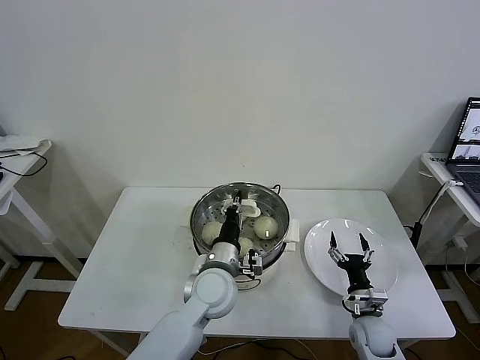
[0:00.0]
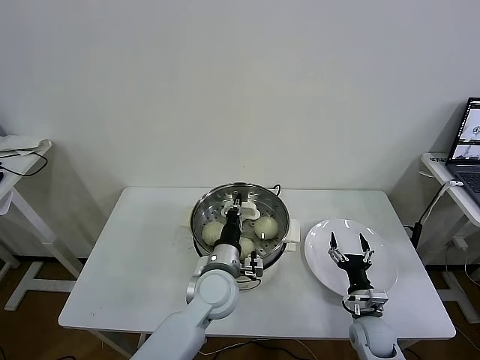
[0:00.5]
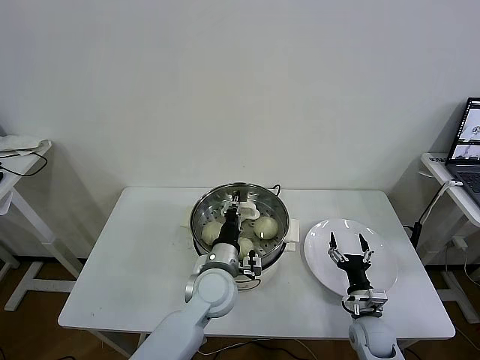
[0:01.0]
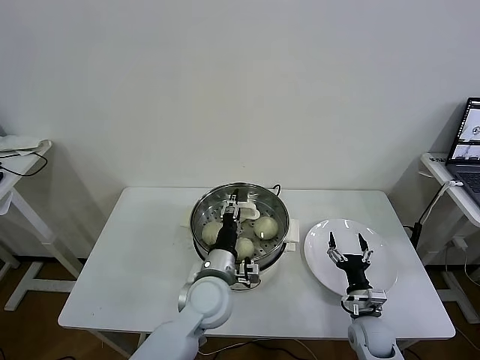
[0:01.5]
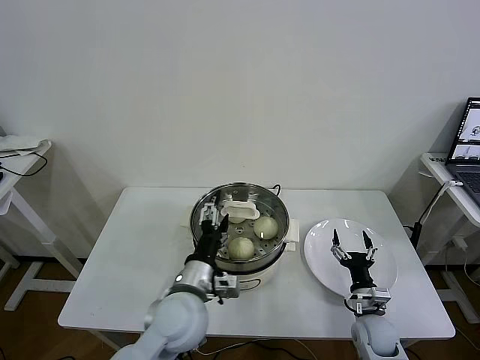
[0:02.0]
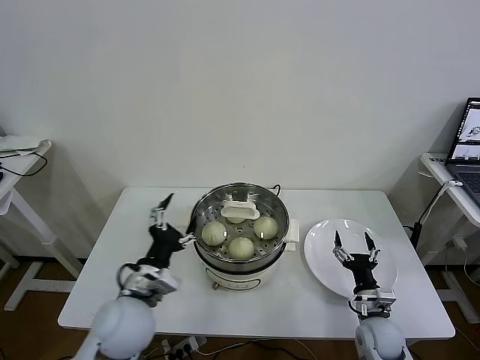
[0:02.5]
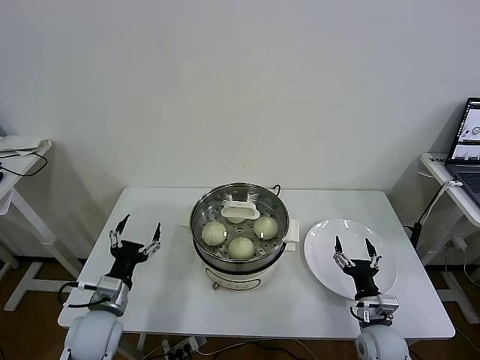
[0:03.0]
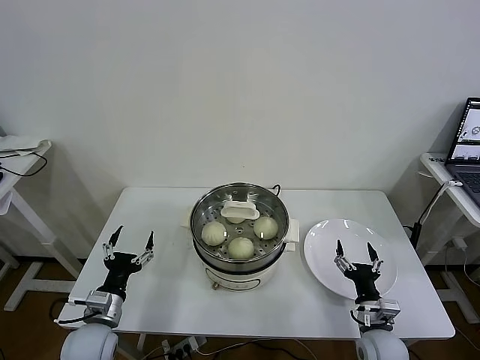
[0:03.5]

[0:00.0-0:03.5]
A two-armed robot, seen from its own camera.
Task of the whole recording: take steamed baozi put them in steamer then cover it.
0:00.0 to 0:02.0: The left gripper shifts some 5 cm backward, and opens up.
0:02.0 to 0:03.5: The left gripper is displaced to the left and downward by some 25 cm. The right gripper changes place by approximately 5 cm.

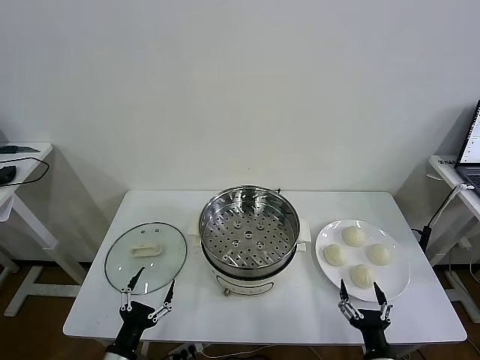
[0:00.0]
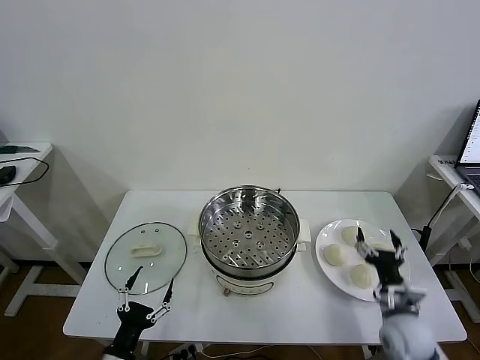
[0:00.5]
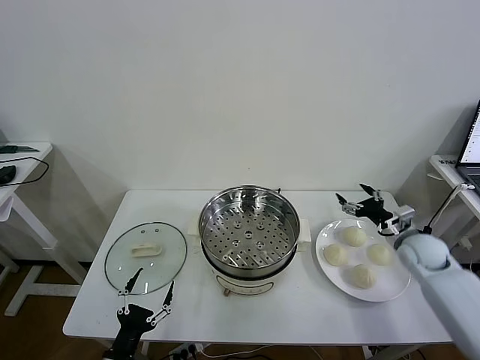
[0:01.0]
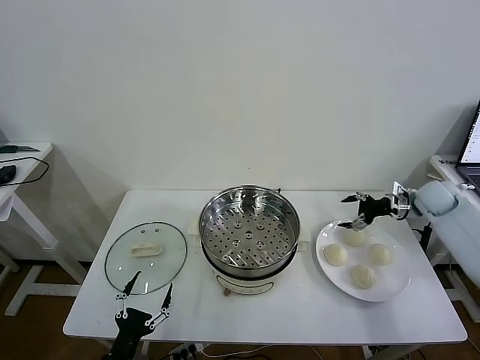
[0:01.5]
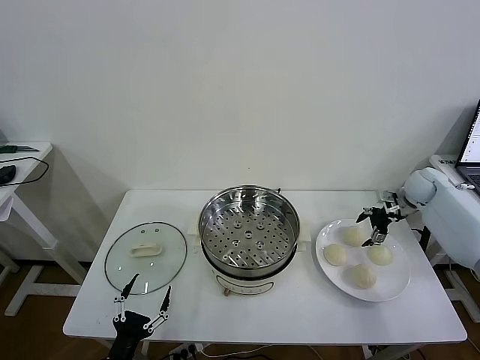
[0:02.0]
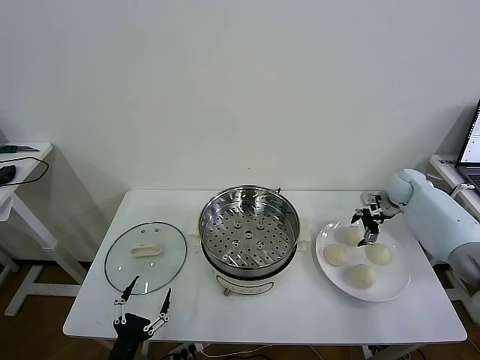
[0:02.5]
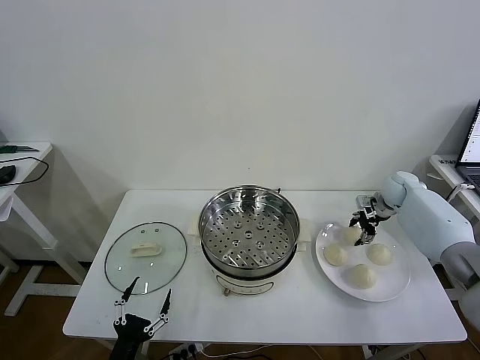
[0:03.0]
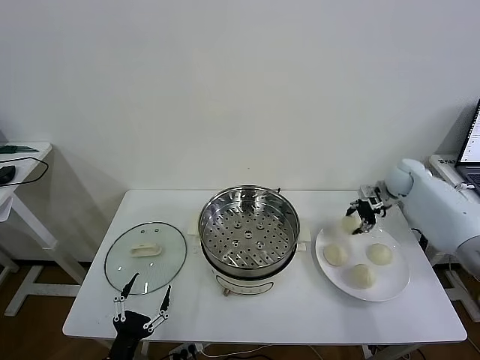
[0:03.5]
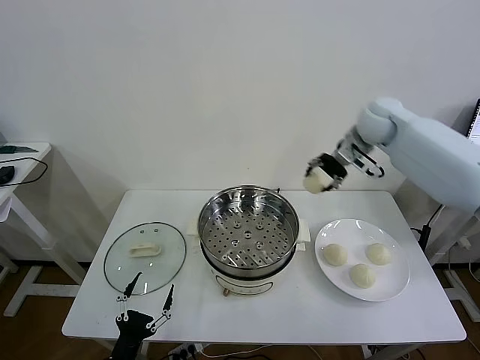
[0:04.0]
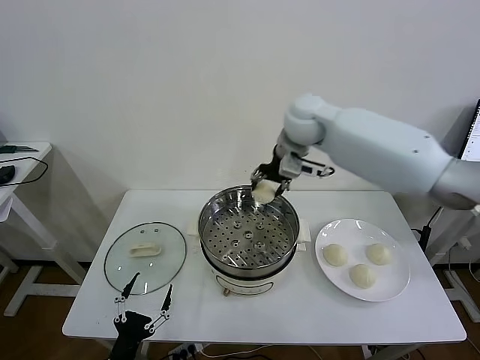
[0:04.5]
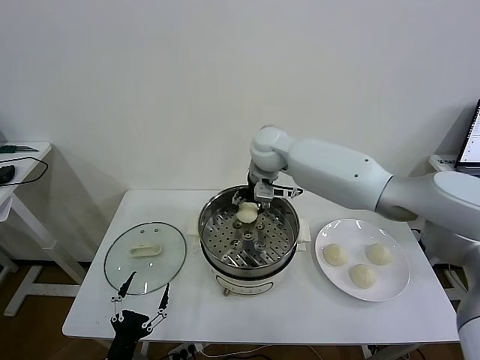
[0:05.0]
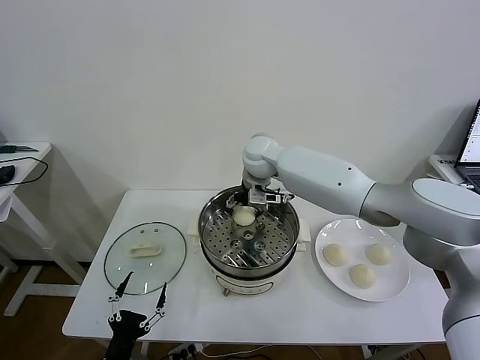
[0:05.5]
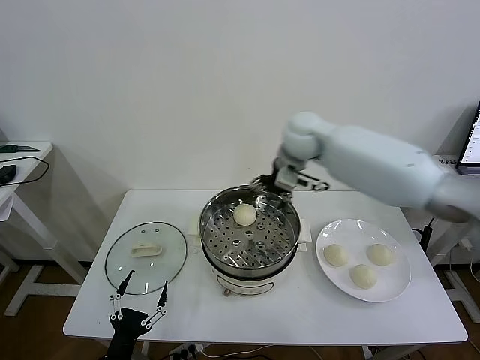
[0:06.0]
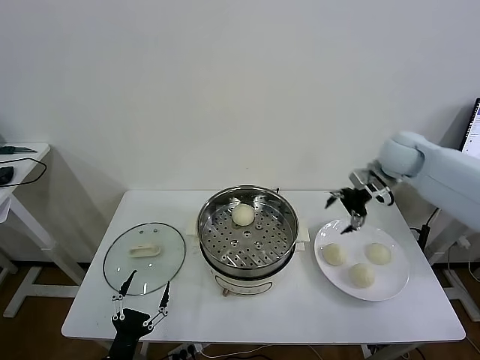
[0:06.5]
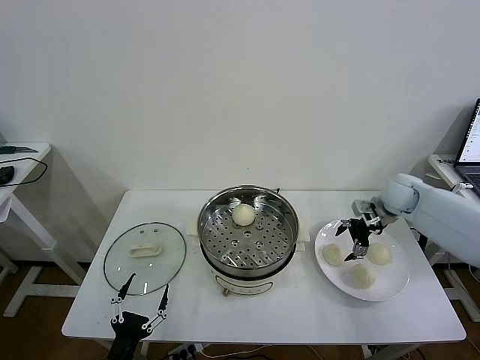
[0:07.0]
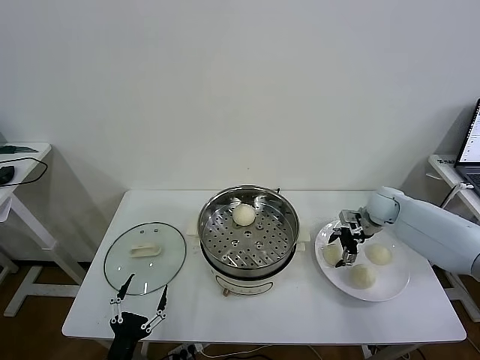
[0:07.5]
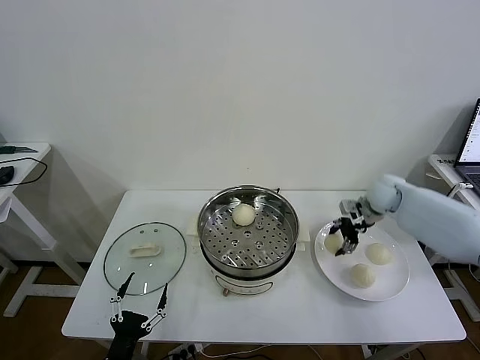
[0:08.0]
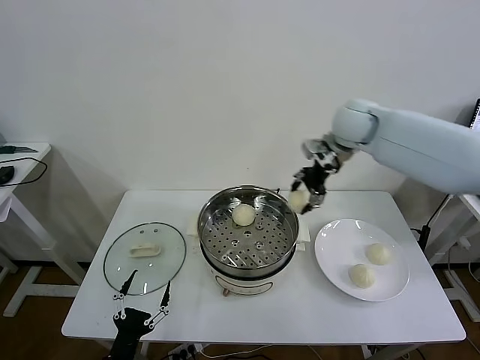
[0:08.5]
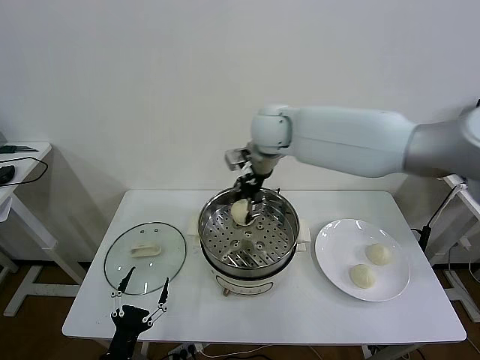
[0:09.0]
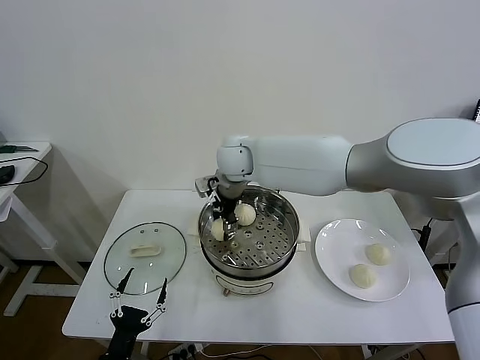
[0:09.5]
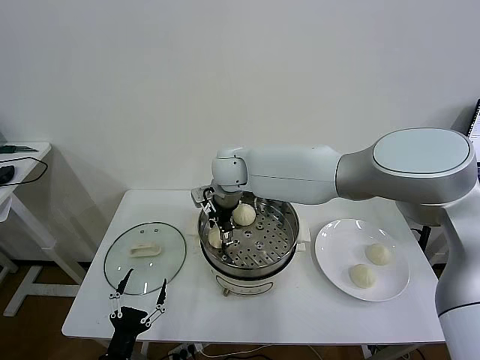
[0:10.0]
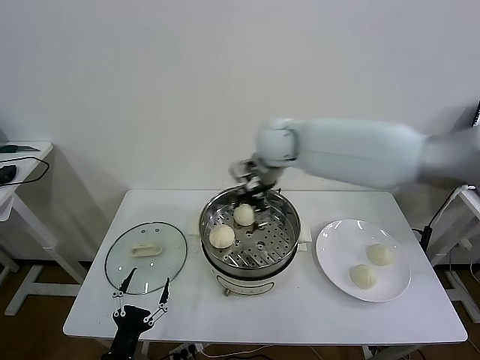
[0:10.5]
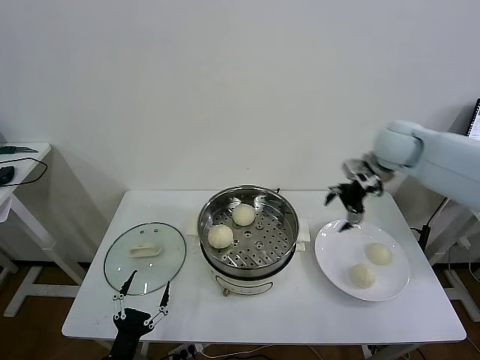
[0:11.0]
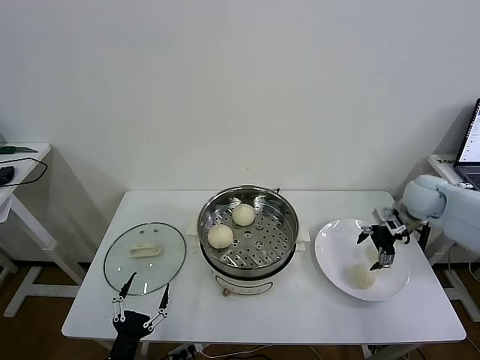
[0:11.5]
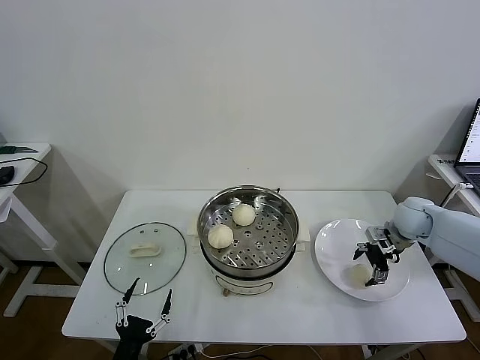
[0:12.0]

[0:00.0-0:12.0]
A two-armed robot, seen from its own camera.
Task of the whole recording: take steamed baozi put them in steamer then cover it.
Step, 0:00.0 to 0:03.0: Grasp the baozi in the plate with right gripper.
Step, 0:03.5 to 0:05.5: Place the baozi on the steamer with right gripper.
Step, 0:06.0 to 0:07.5: Grasp the baozi in the plate with right gripper.
Step, 0:08.0 to 0:10.0: Place the baozi on the steamer with right gripper.
0:02.0 to 0:04.0: The right gripper heads to the left and upward, covering roughly 30 cm, and closes up.
0:04.0 to 0:06.0: The right gripper heads to the left, covering approximately 5 cm, and opens up.
0:06.0 to 0:08.0: The right gripper heads to the right and downward, covering approximately 25 cm, and closes its fingers.
0:08.0 to 0:10.0: The right gripper shifts approximately 40 cm to the left, and opens its fingers.
0:10.0 to 0:12.0: The right gripper shifts approximately 40 cm to the right.

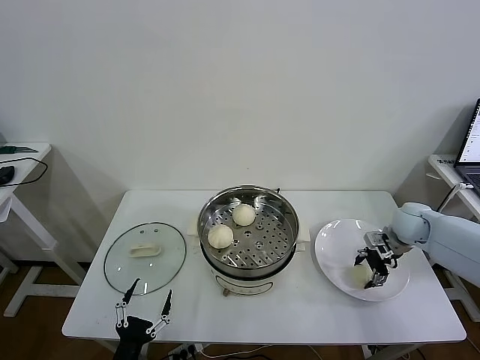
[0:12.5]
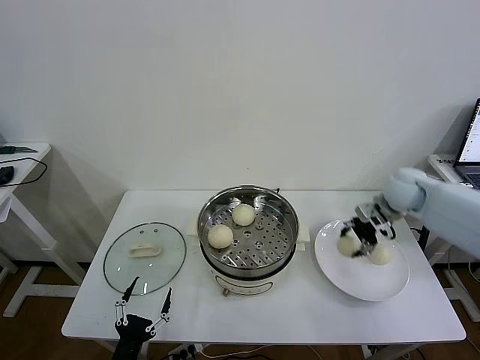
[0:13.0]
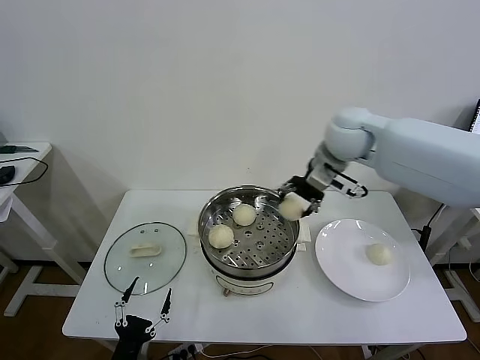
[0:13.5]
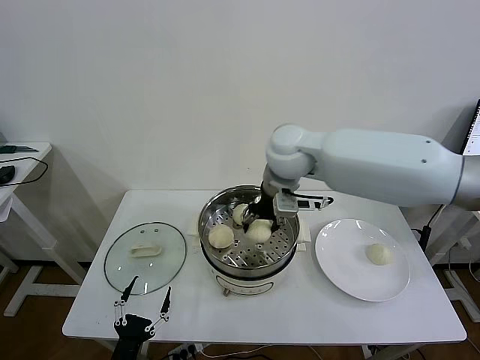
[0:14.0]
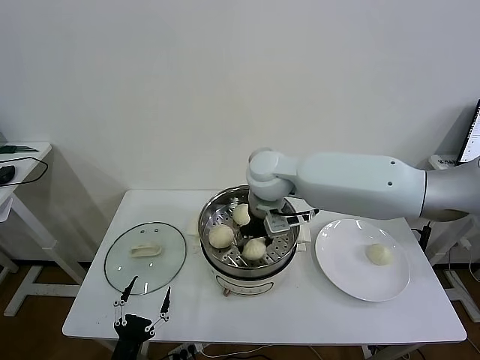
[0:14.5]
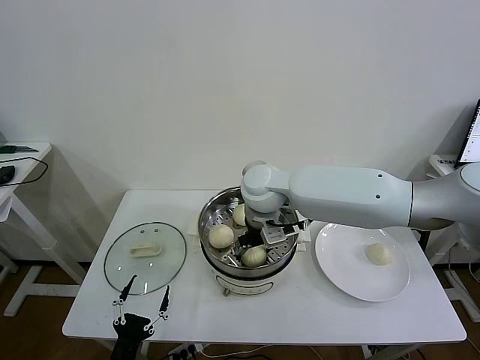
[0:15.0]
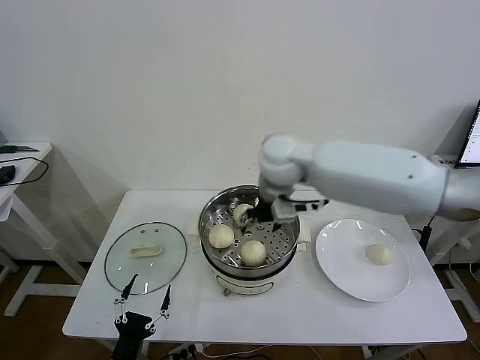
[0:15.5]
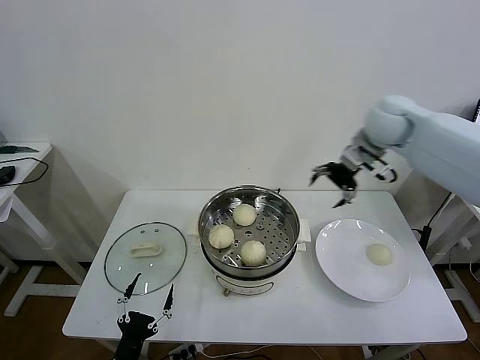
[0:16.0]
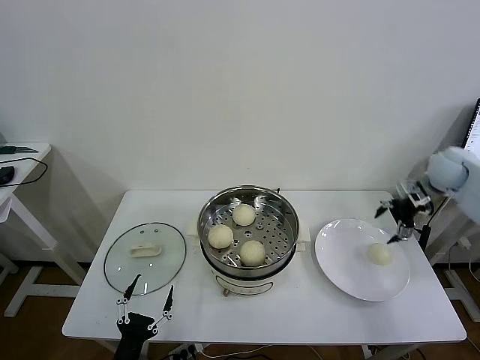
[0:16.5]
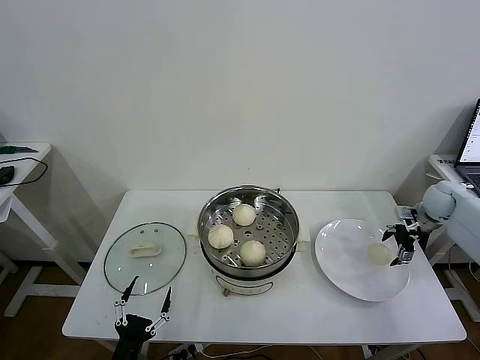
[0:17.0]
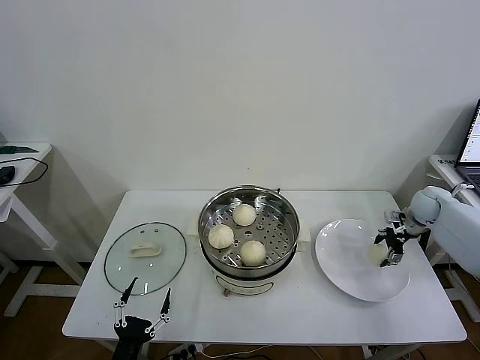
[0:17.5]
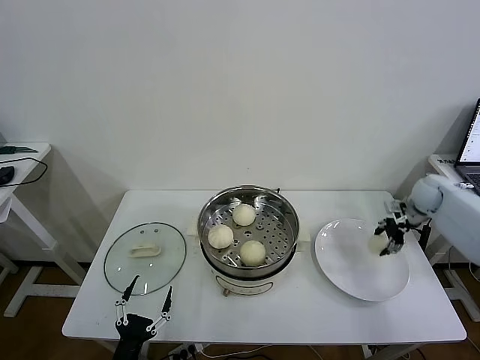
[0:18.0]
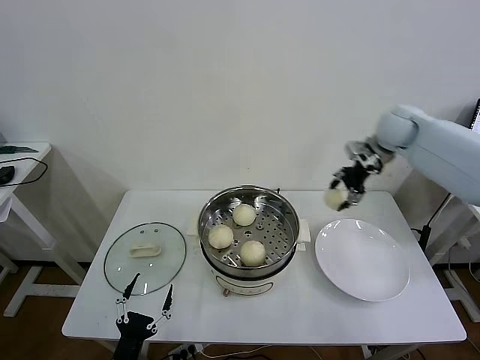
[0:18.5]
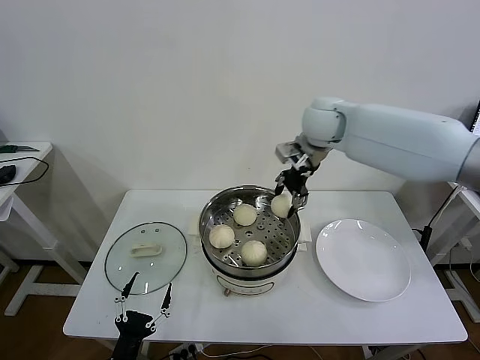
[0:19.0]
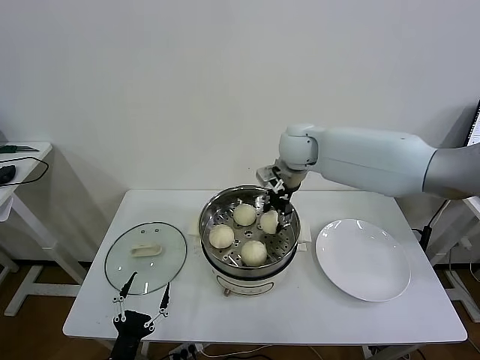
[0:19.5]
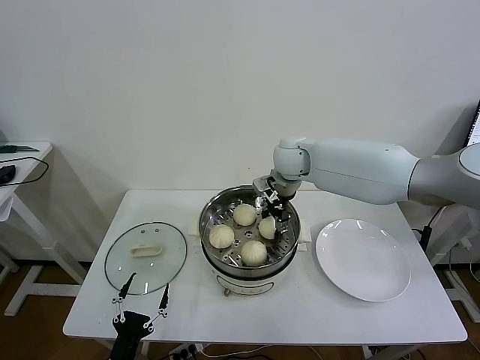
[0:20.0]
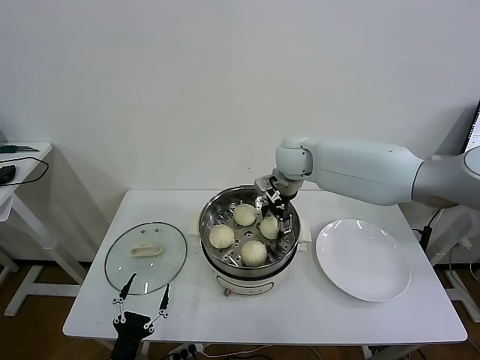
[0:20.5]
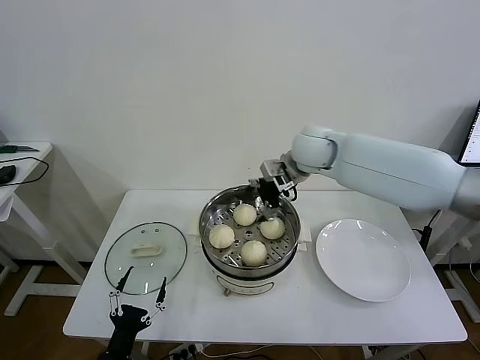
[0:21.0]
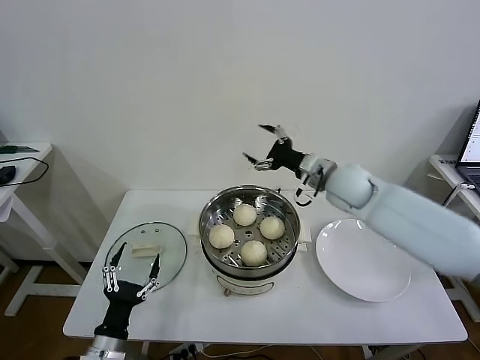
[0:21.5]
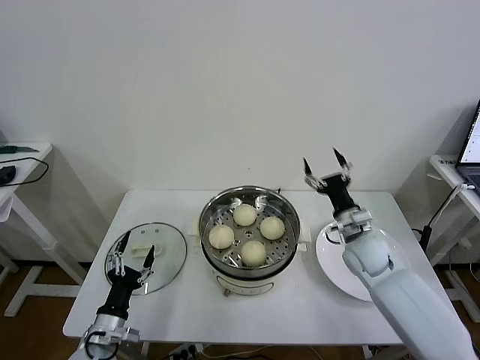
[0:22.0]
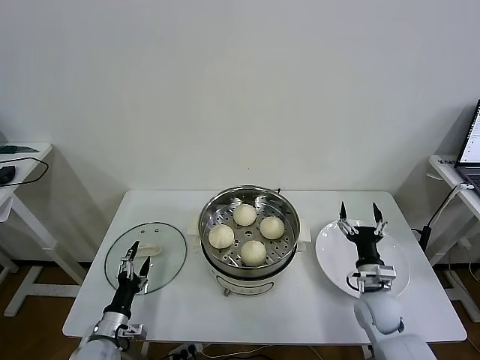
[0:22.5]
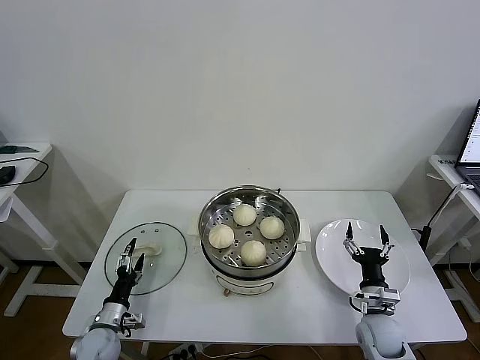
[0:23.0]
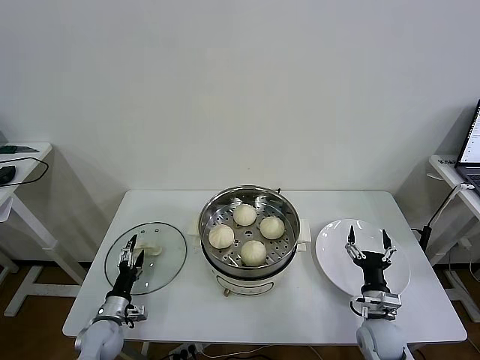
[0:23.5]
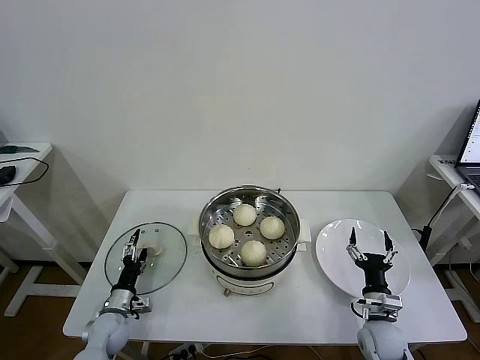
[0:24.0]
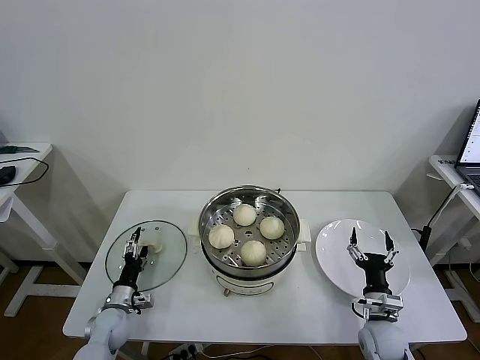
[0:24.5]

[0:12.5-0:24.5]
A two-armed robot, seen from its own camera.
Task of the whole recording: take steamed baozi put them in steamer then cover it.
Step, 0:13.0 to 0:15.0: Place the baozi on the steamer with right gripper.
Step, 0:15.5 to 0:17.5: Grasp the baozi in the plate with right gripper.
Step, 0:18.0 to 0:20.5: Place the baozi on the steamer with right gripper.
0:12.5 to 0:14.5: The right gripper goes approximately 40 cm to the left and upward.
0:14.5 to 0:16.5: The right gripper travels to the right by about 40 cm, and opens.
0:16.5 to 0:18.5: The right gripper goes about 20 cm to the left and upward, and closes up.
0:18.5 to 0:20.5: The right gripper heads to the left, covering approximately 20 cm, and opens.
0:20.5 to 0:22.5: The right gripper goes roughly 40 cm downward, backward and to the right. The left gripper heads forward and to the left, covering roughly 15 cm.
0:22.5 to 0:24.5: The right gripper moves backward, about 5 cm. The left gripper shifts about 10 cm forward.
